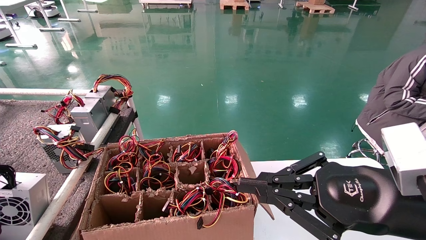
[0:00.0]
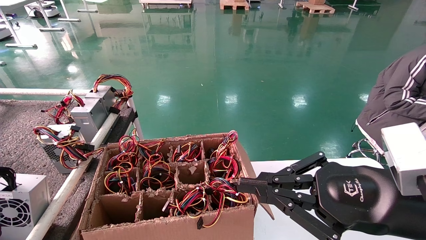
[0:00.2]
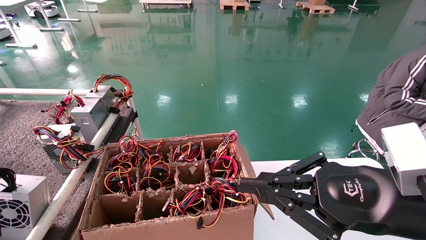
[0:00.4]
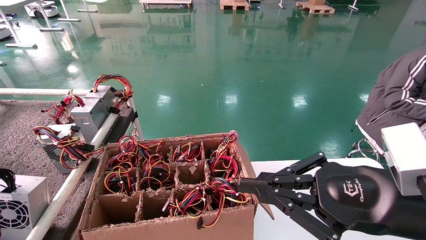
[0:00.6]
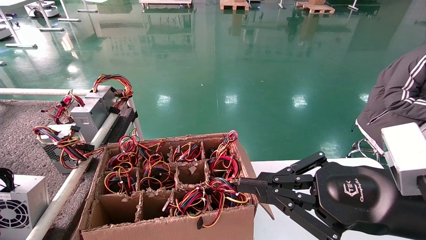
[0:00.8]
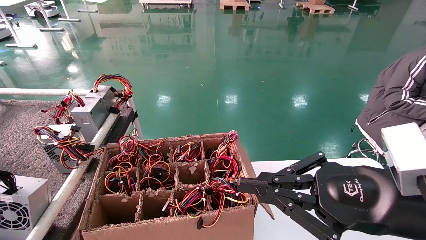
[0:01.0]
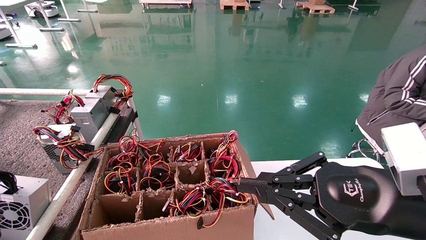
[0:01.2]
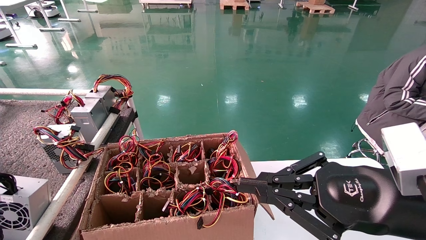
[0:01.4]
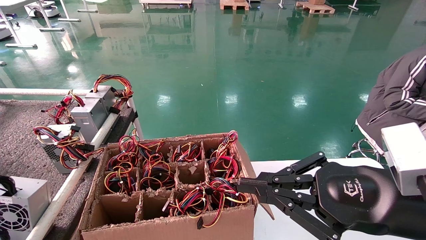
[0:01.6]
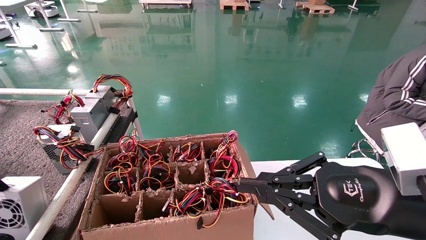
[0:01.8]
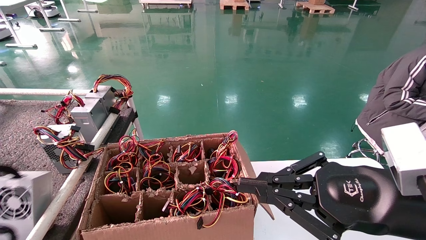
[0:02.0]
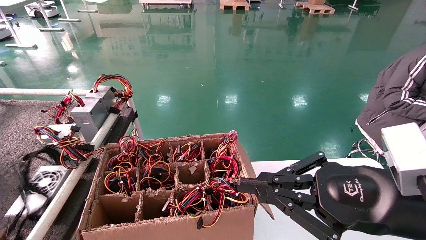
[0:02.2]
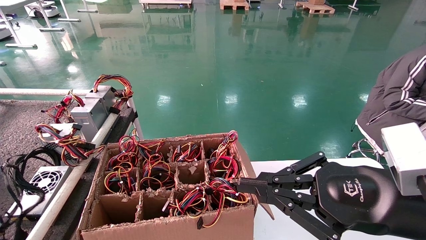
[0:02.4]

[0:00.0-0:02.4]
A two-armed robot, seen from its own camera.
0:00.0 to 0:01.2: Both grippers stay put.
0:01.2 to 0:02.4: The left gripper opens up.
